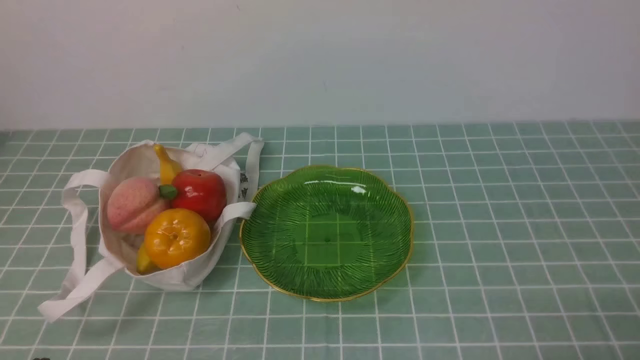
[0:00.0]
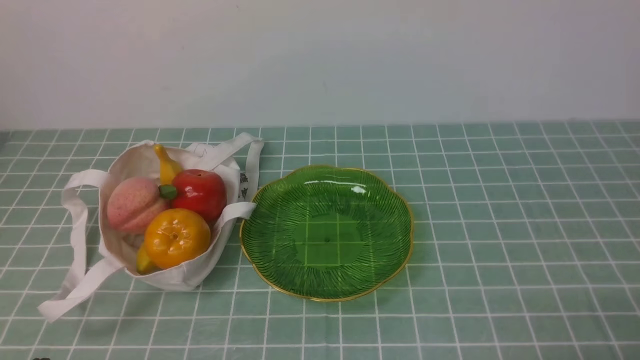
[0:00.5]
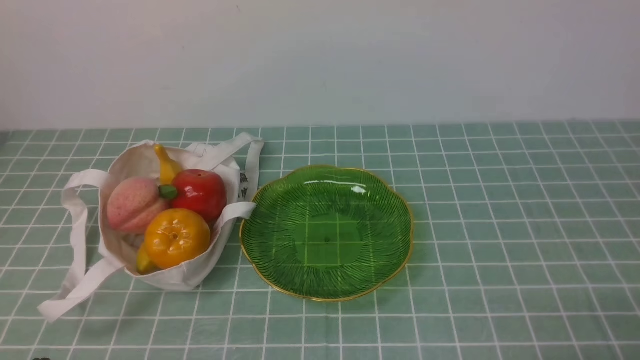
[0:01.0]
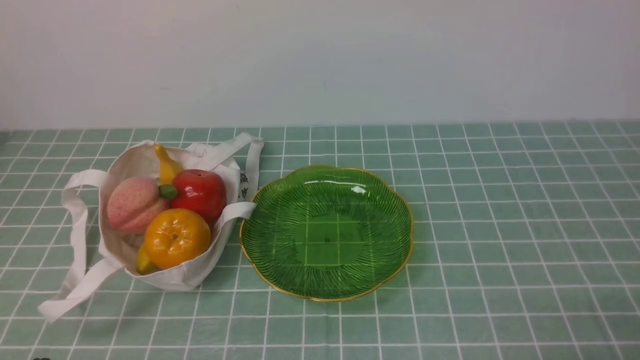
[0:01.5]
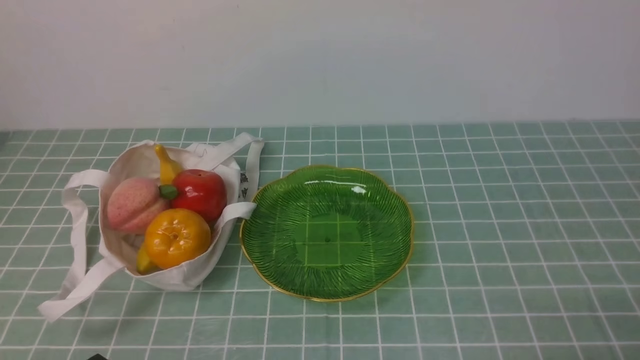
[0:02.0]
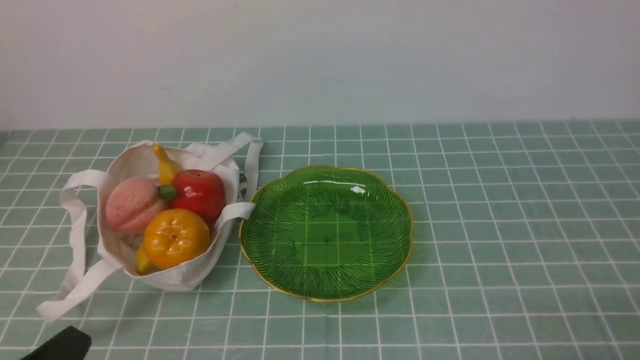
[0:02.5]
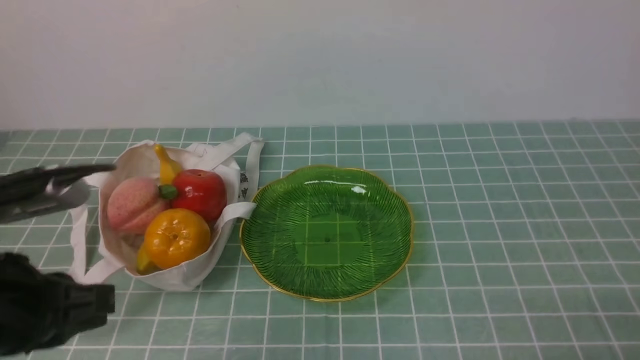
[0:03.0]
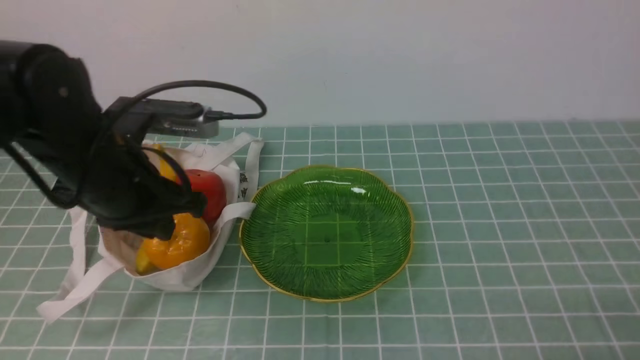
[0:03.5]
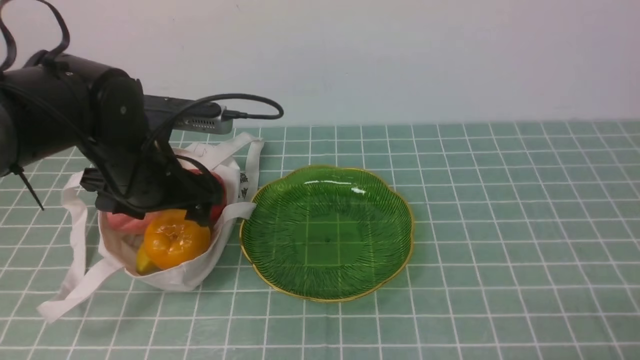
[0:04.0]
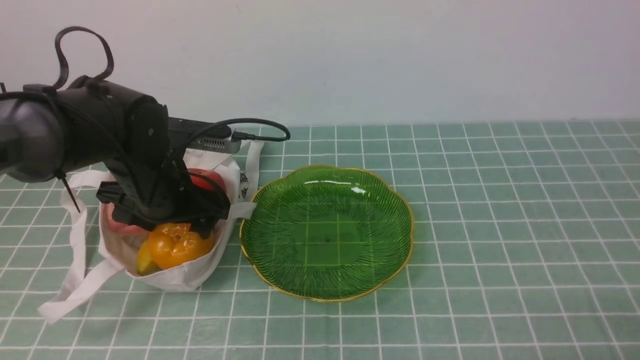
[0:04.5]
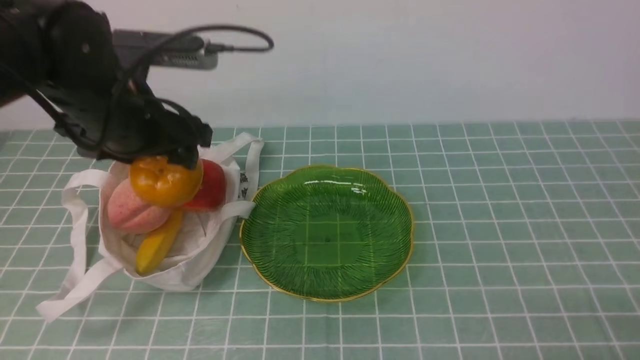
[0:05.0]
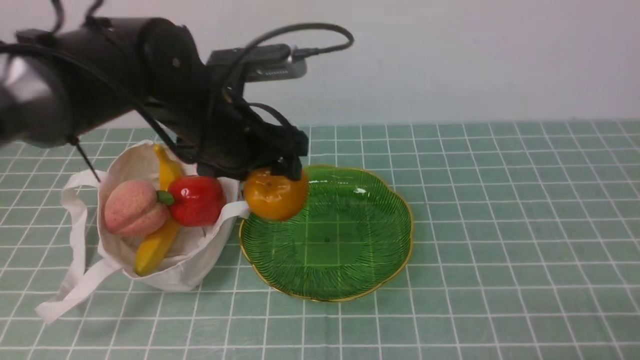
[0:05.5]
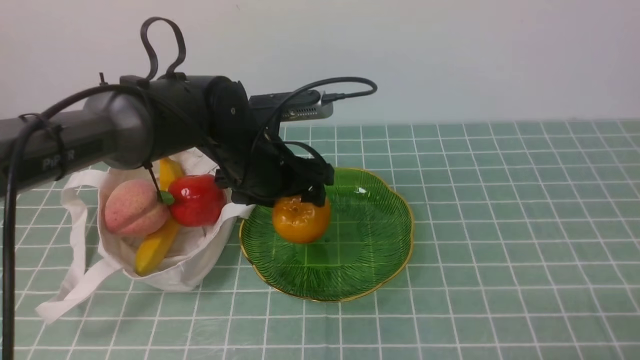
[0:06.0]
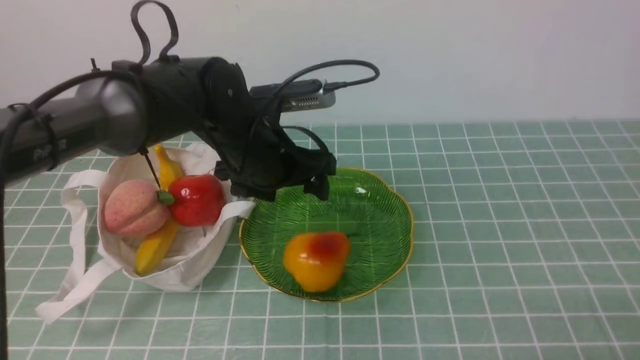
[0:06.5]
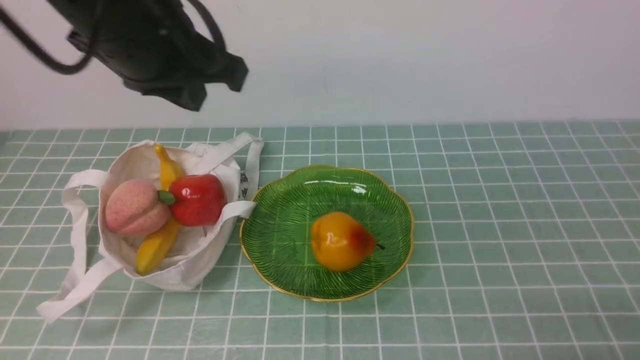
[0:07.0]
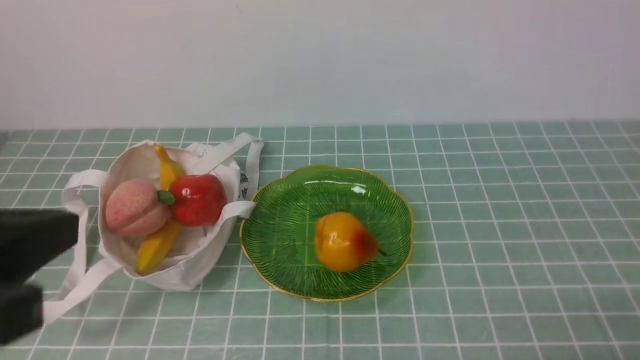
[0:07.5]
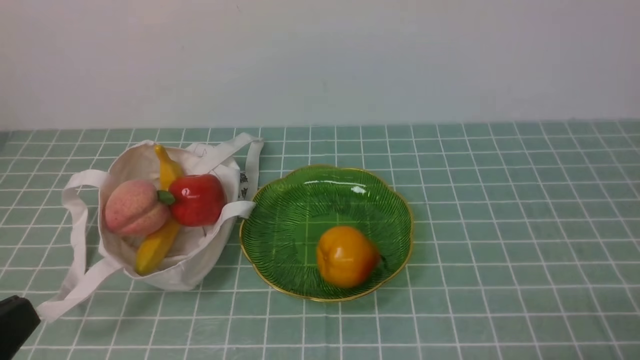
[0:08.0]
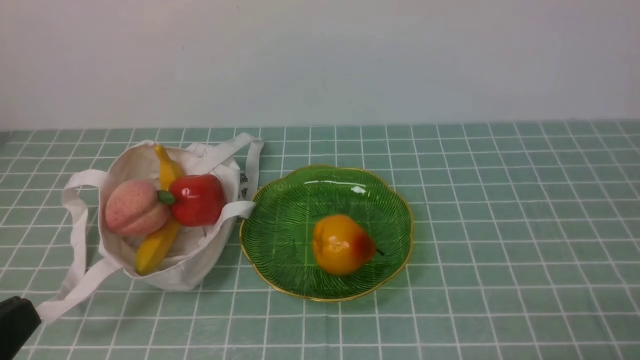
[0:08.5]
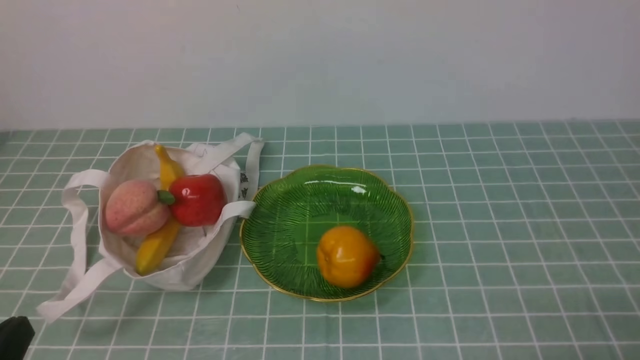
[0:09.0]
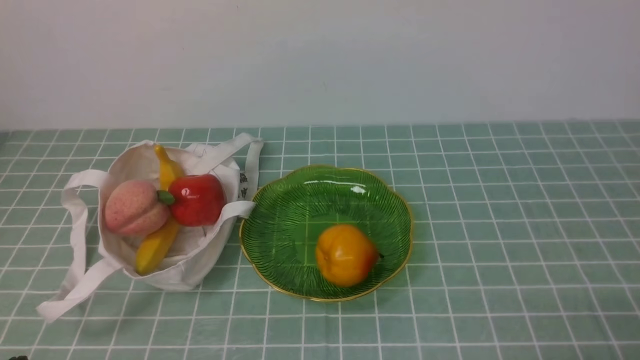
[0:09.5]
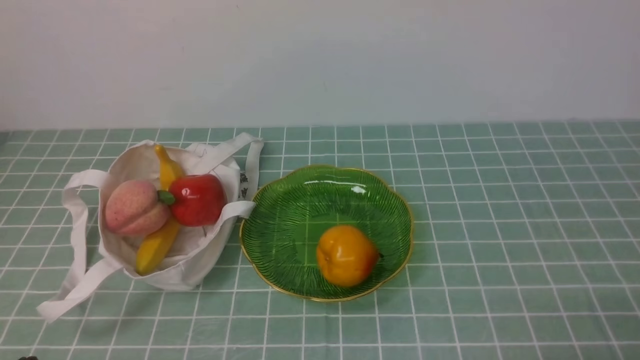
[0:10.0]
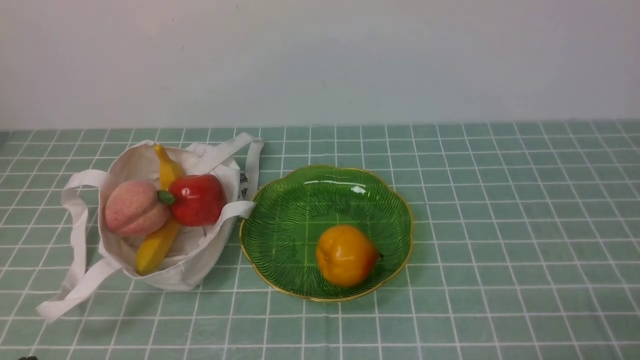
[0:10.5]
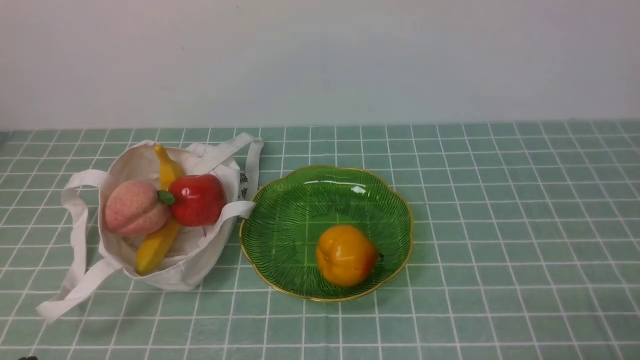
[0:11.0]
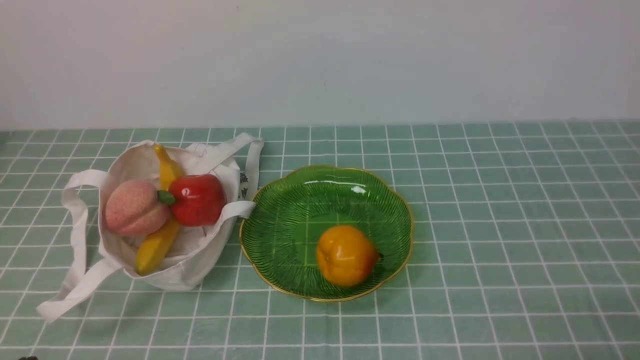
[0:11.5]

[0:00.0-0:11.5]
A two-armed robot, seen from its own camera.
Step, 0:00.0 to 0:04.5: use the left arm to grab a pear from the bag.
Step, 0:05.0 to 0:06.0: use the left arm to put the pear into the empty plate on the right.
0:02.0 to 0:04.0: The left gripper is displaced forward by about 25 cm, and opens its fingers.
0:04.0 to 0:06.0: The left gripper is displaced to the right by about 10 cm.
0:06.0 to 0:07.5: The left gripper is displaced backward, upward and to the left by some 30 cm, and closes up.
0:07.5 to 0:09.5: The left gripper travels downward by some 25 cm.
0:09.5 to 0:11.5: Neither gripper changes place.
